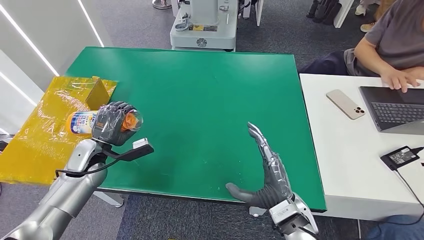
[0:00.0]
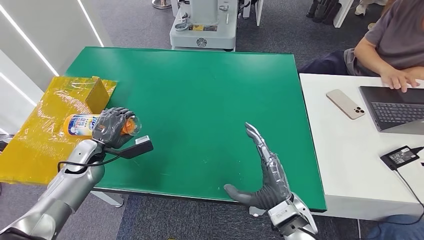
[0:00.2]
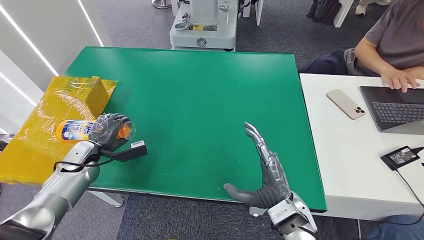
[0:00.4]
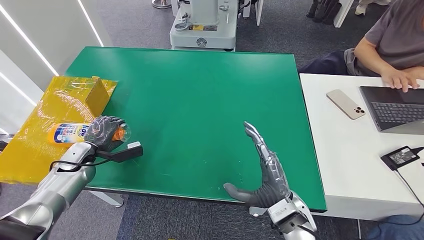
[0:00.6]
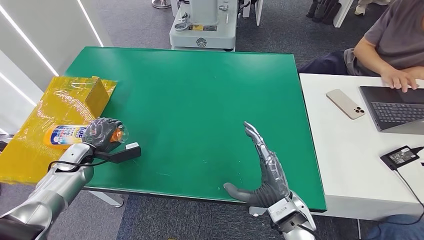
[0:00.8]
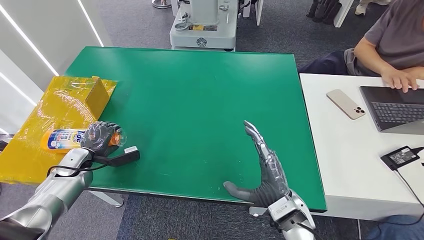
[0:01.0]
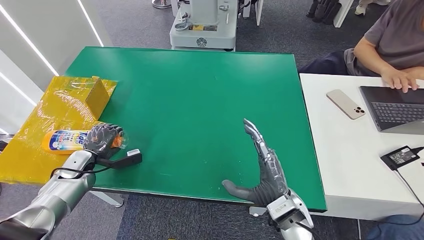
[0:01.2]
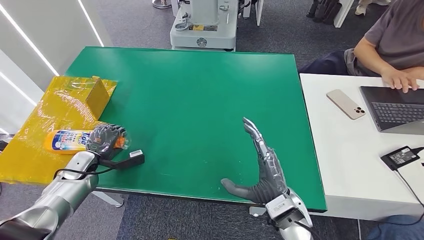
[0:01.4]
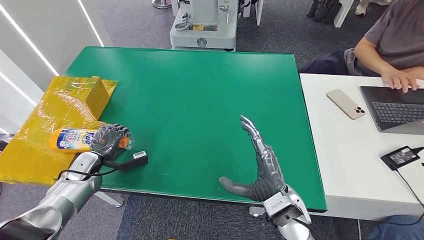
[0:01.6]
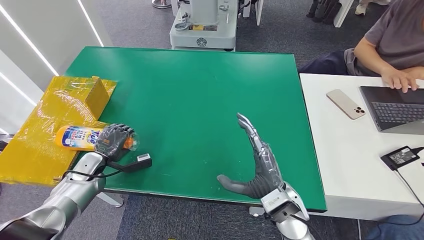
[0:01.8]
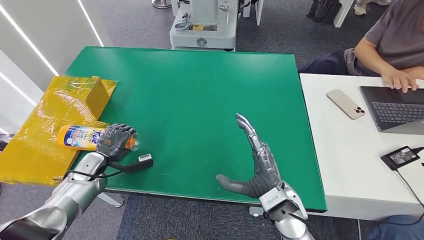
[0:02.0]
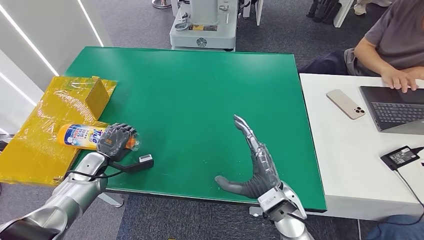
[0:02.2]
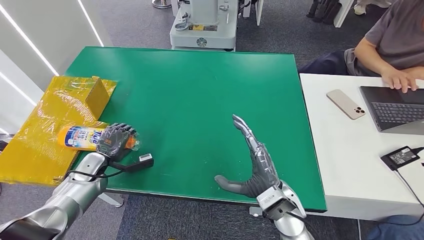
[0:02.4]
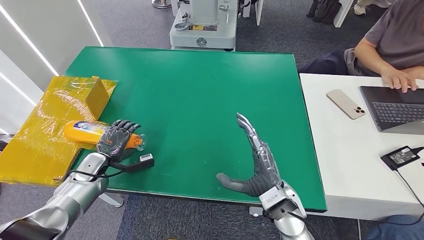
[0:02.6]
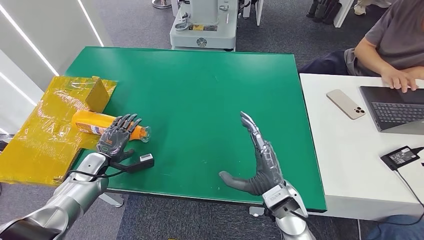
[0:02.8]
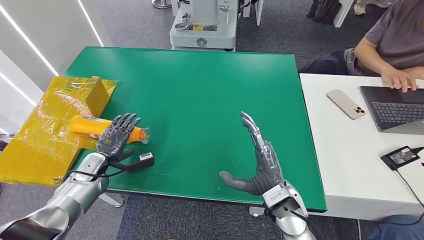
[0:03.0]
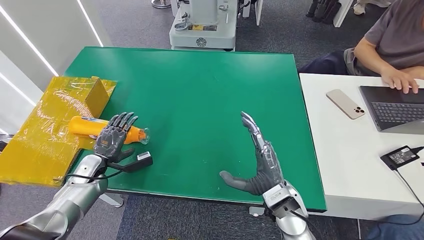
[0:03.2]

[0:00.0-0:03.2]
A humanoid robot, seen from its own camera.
Step, 0:00.0 to 0:03.2: Turn the bottle to the front side.
0:00.0 to 0:01.6: The left hand moves downward, some 10 cm.
0:01.6 to 0:03.2: There are only small adjustments of the hands.
